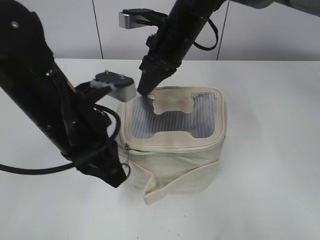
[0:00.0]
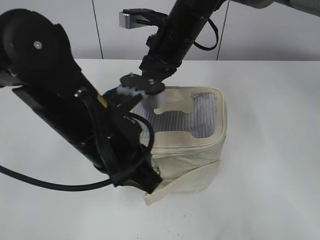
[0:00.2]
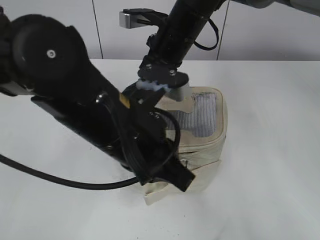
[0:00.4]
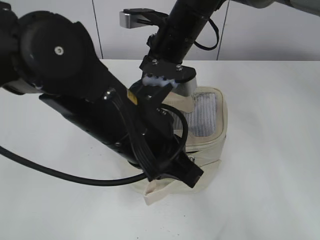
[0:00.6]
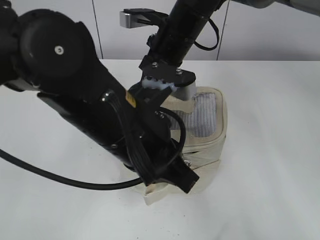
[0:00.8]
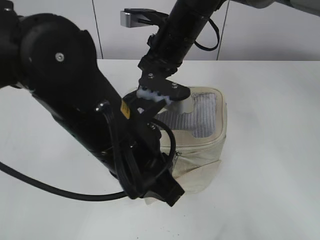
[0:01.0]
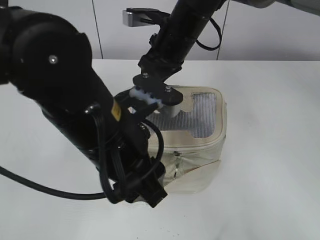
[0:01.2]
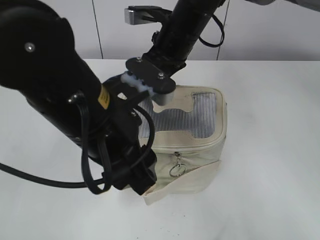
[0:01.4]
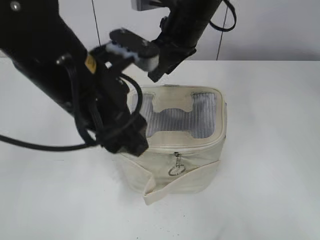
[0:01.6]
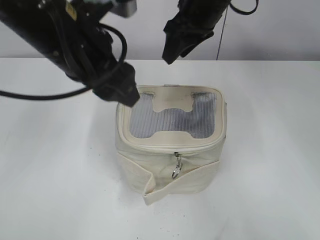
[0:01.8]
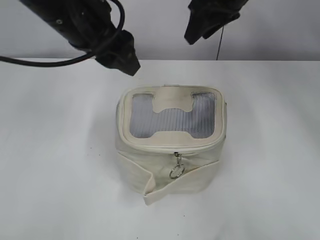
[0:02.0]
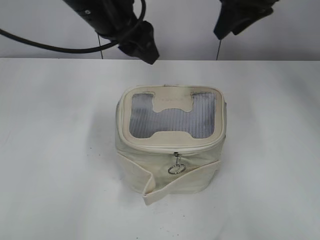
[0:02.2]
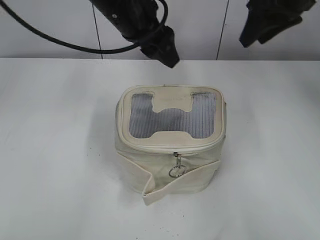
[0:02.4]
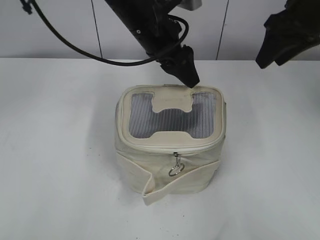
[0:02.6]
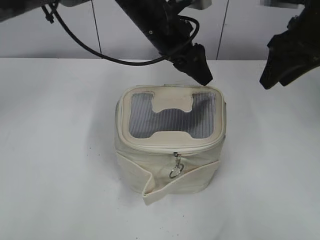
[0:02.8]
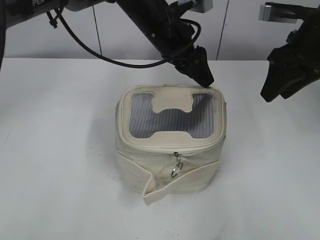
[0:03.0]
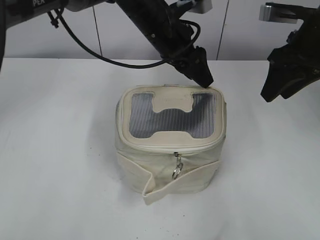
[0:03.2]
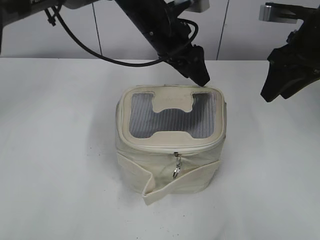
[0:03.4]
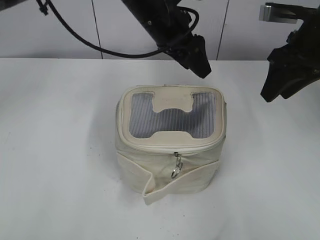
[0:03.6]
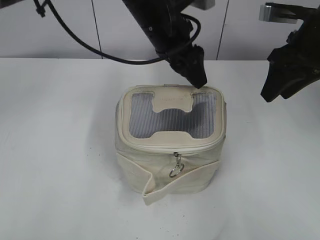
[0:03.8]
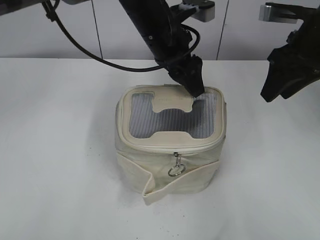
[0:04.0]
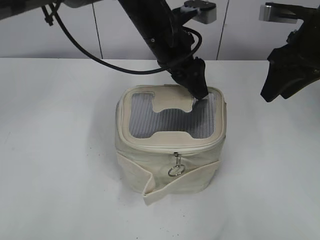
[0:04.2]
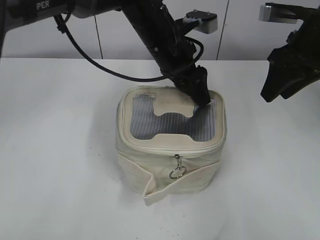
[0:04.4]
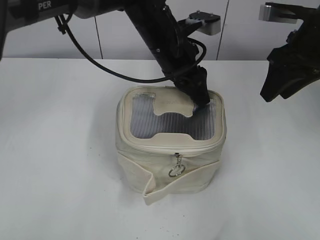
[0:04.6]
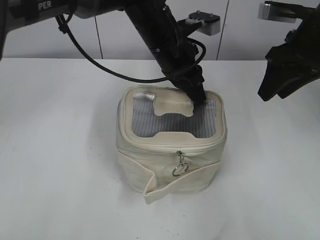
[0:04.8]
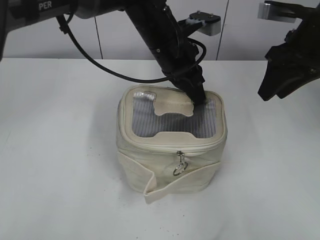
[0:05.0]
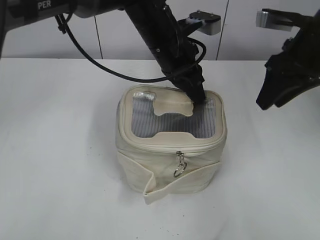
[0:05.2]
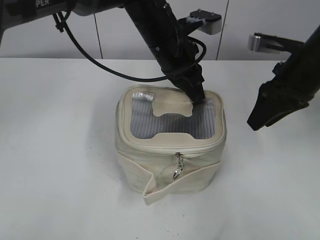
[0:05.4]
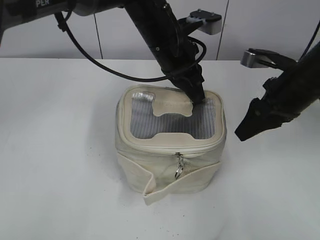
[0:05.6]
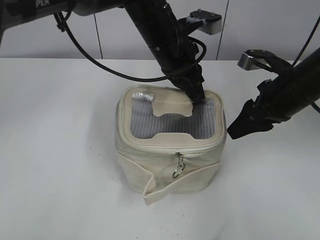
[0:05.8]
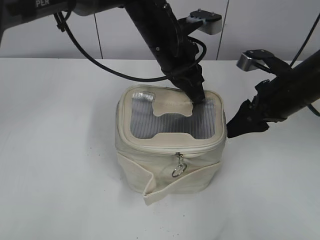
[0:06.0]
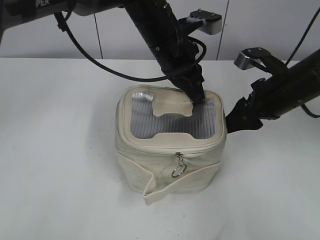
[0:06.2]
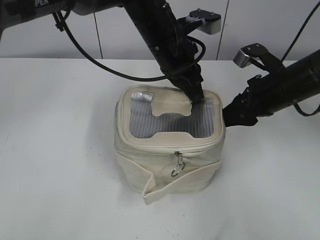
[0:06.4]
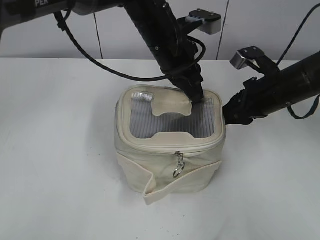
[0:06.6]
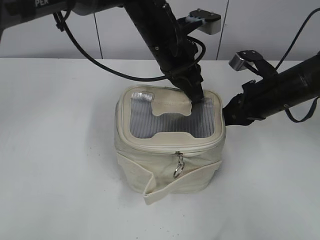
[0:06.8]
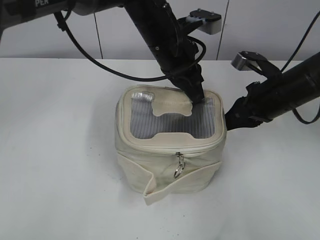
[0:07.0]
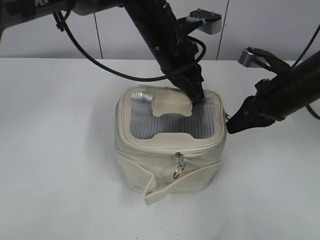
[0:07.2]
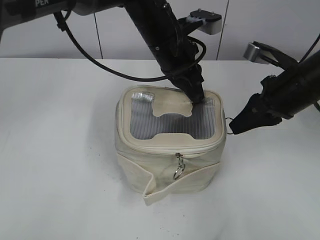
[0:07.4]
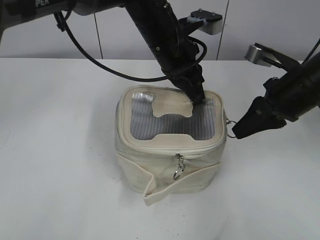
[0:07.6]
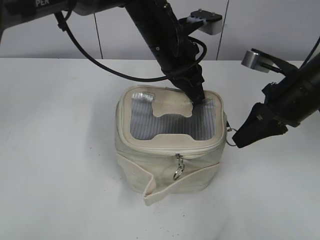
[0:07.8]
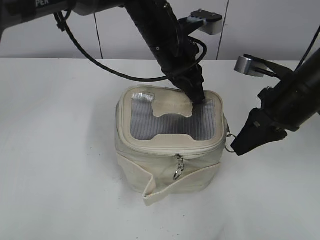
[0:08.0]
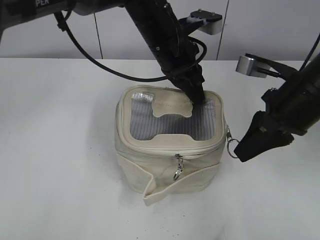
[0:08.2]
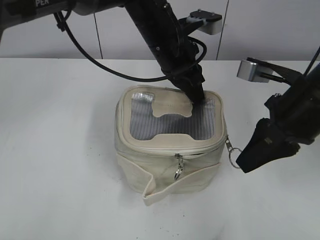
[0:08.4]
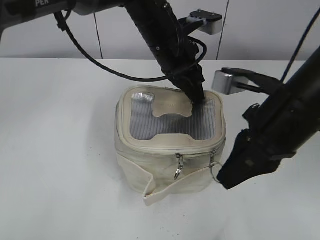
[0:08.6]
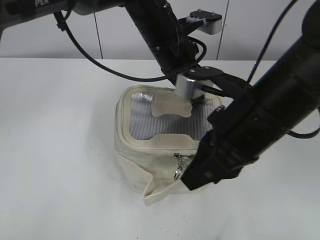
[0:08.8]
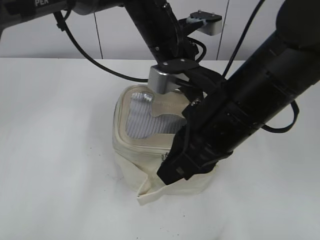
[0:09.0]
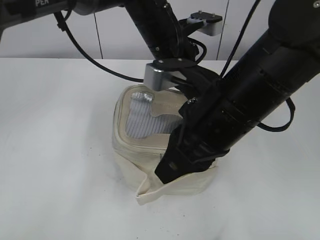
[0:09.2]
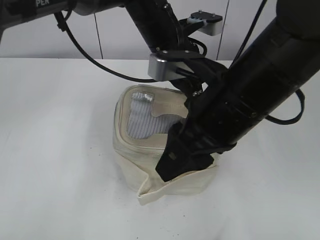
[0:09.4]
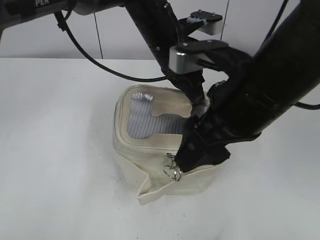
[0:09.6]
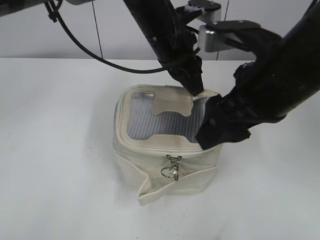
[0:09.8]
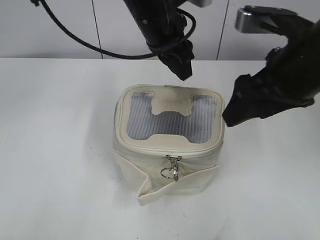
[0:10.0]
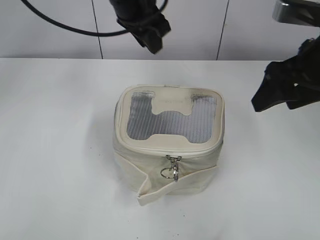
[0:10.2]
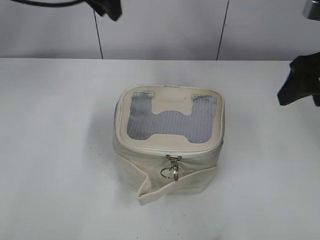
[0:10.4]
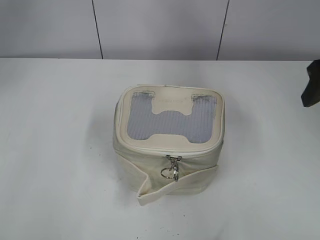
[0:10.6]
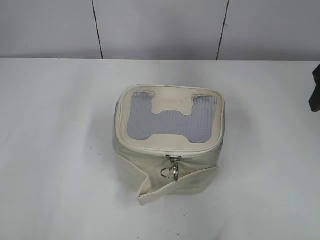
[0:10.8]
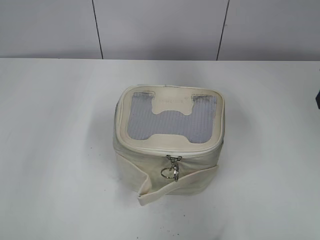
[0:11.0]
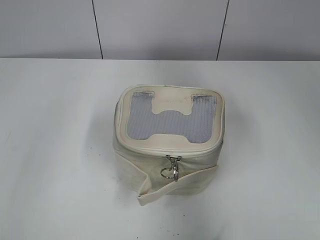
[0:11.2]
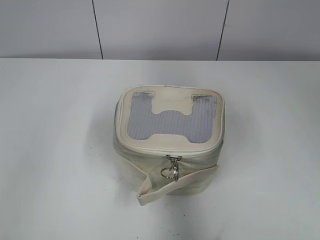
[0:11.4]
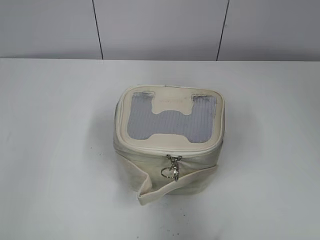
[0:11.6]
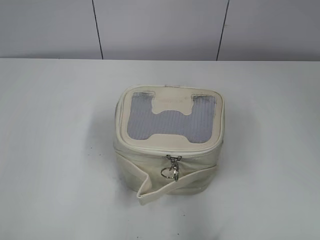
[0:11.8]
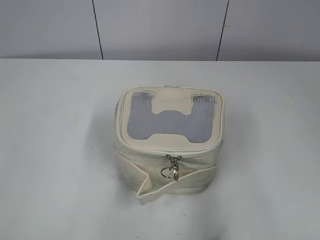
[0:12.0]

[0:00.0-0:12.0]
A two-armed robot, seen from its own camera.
Step, 0:01.4 to 0:01.6: Hold the bag with your right hand.
Step, 0:01.8 to 0:09.2: Zip up the bag with your right hand.
Step, 0:09.4 to 0:09.8: Hold the bag with your left hand.
0:00.0 to 0:01.6: The left gripper opens its fingers. Meanwhile the right gripper opens up.
0:01.6 to 0:03.0: The left gripper shifts some 20 cm forward and to the right. Meanwhile the right gripper shifts approximately 20 cm to the right.
0:03.0 to 0:04.4: There are only small adjustments of the grippers.
0:04.4 to 0:06.0: The right gripper moves downward, approximately 10 cm, while the left gripper closes.
0:06.0 to 0:07.6: The right gripper closes its fingers.
0:07.6 to 0:09.0: The right gripper goes roughly 15 cm to the left and backward.
0:09.0 to 0:10.4: The right gripper goes approximately 15 cm to the right and forward, and opens its fingers. Meanwhile the left gripper is displaced upward and to the left by about 15 cm, and opens its fingers.
0:10.4 to 0:12.0: The left gripper travels backward and to the left by approximately 40 cm. Meanwhile the right gripper travels backward by some 20 cm.
